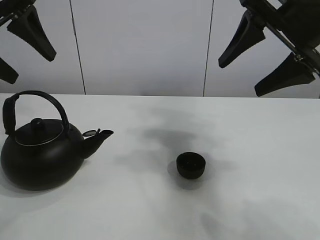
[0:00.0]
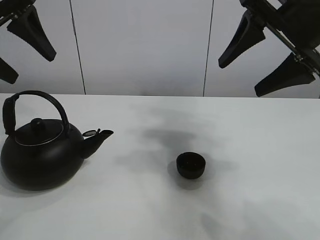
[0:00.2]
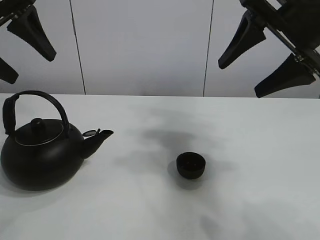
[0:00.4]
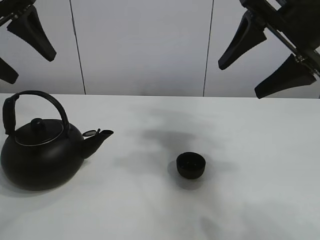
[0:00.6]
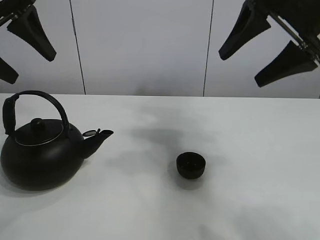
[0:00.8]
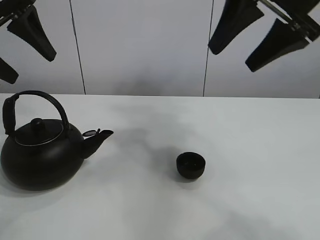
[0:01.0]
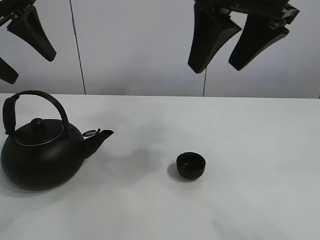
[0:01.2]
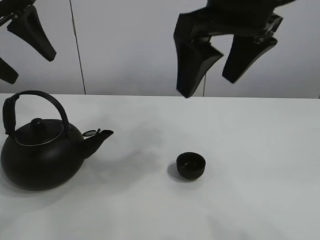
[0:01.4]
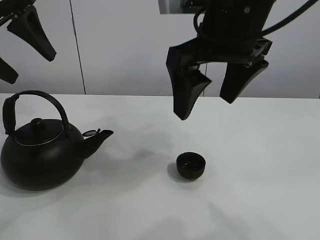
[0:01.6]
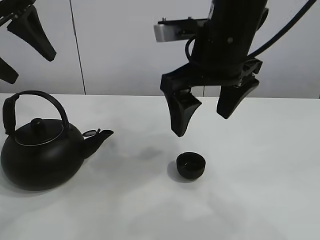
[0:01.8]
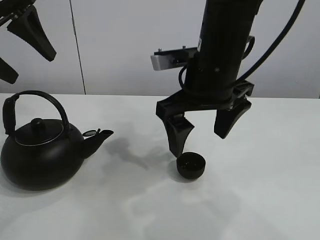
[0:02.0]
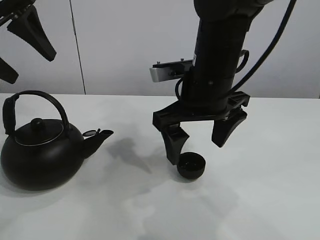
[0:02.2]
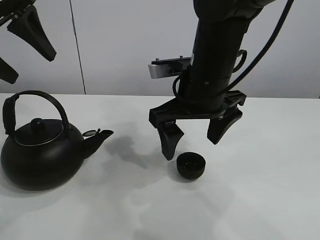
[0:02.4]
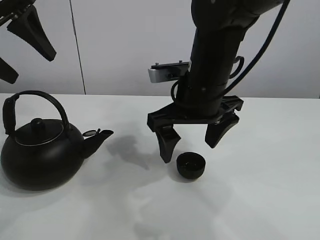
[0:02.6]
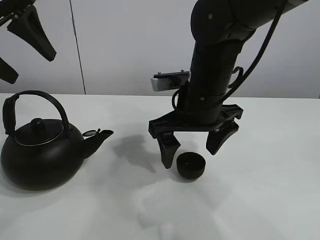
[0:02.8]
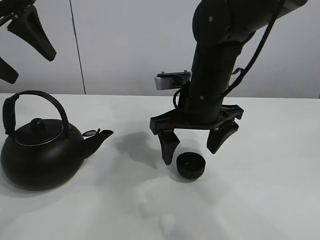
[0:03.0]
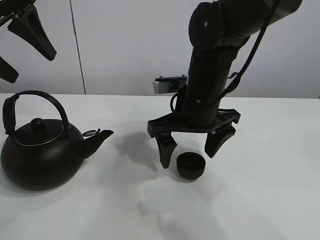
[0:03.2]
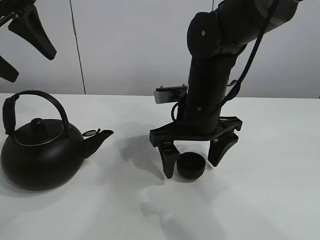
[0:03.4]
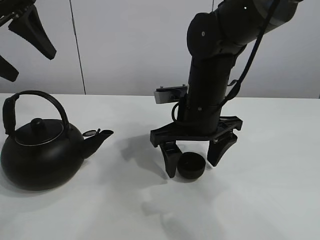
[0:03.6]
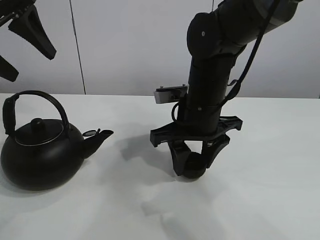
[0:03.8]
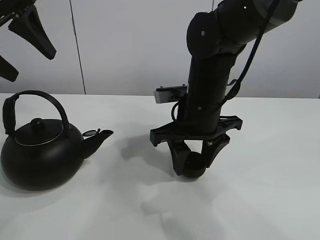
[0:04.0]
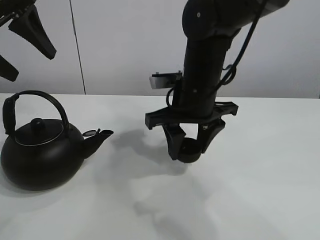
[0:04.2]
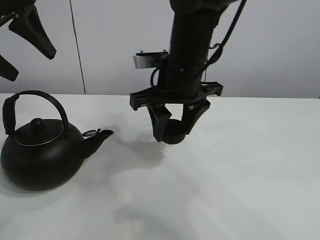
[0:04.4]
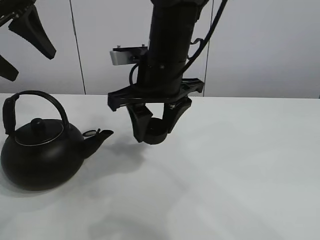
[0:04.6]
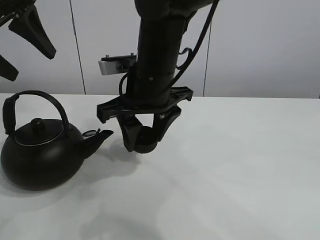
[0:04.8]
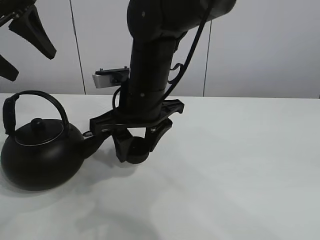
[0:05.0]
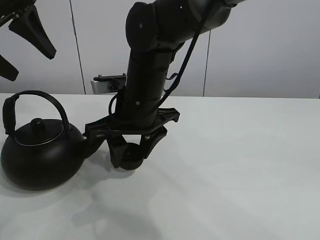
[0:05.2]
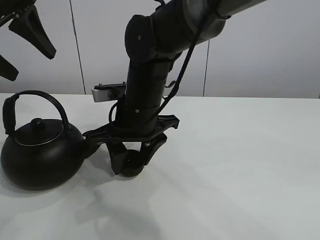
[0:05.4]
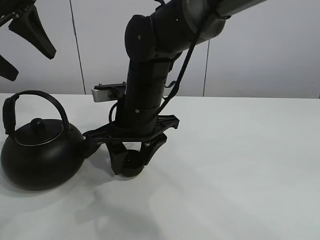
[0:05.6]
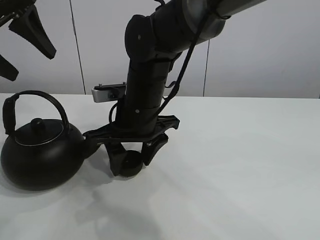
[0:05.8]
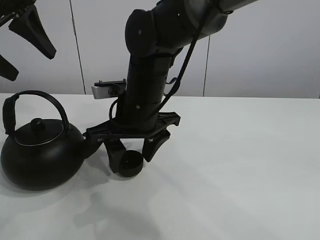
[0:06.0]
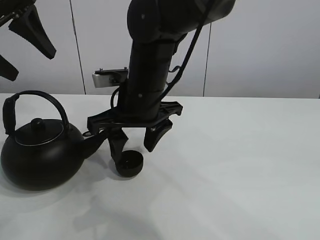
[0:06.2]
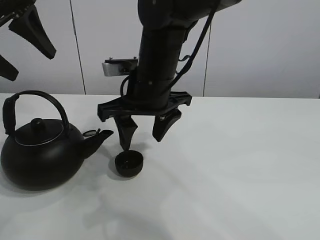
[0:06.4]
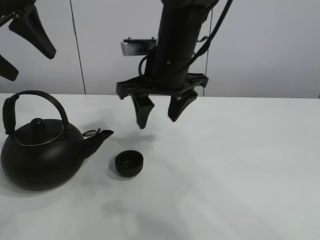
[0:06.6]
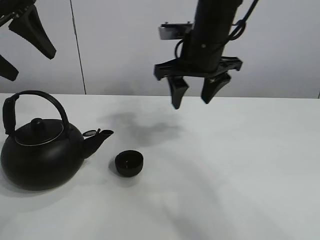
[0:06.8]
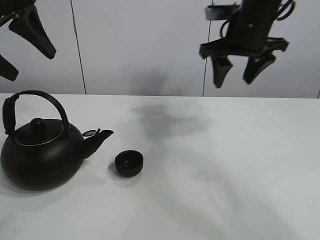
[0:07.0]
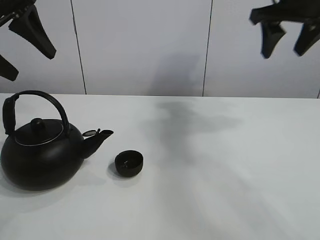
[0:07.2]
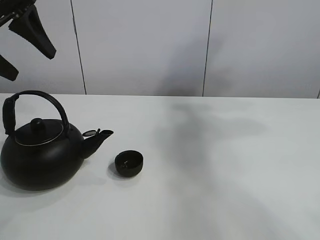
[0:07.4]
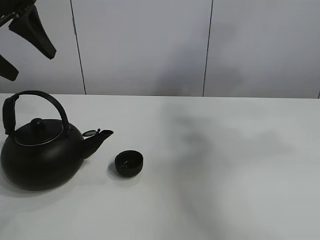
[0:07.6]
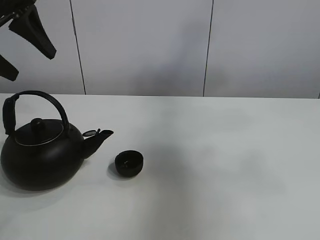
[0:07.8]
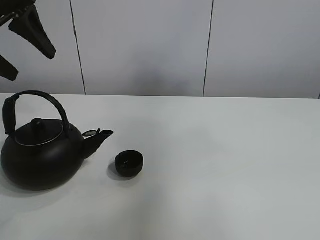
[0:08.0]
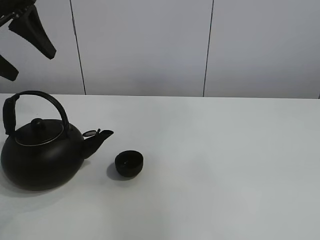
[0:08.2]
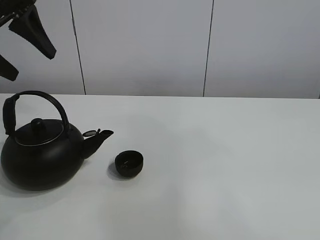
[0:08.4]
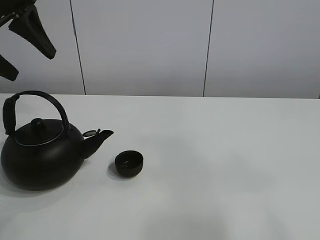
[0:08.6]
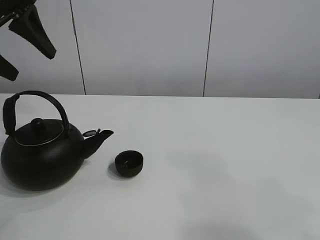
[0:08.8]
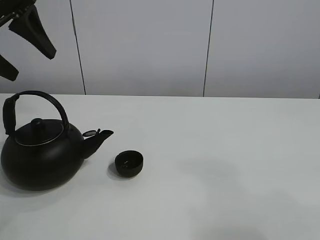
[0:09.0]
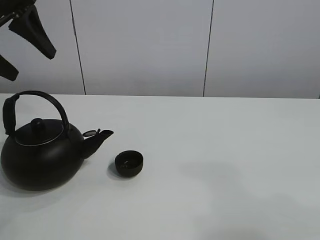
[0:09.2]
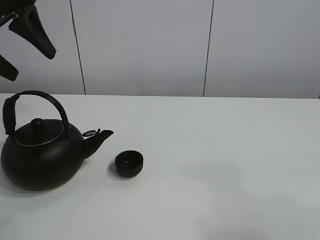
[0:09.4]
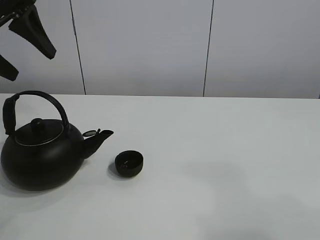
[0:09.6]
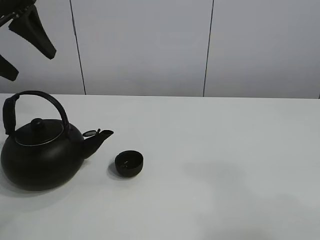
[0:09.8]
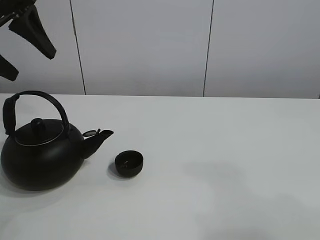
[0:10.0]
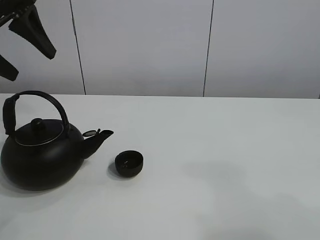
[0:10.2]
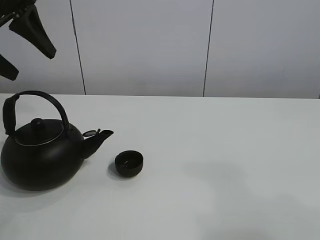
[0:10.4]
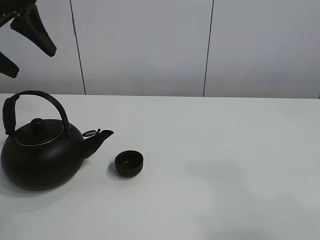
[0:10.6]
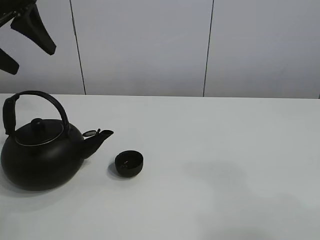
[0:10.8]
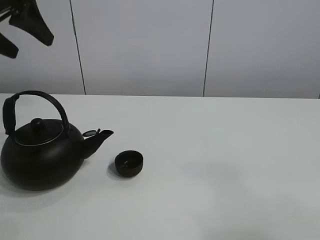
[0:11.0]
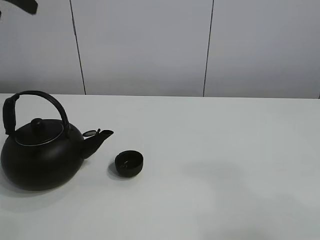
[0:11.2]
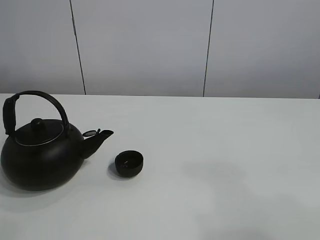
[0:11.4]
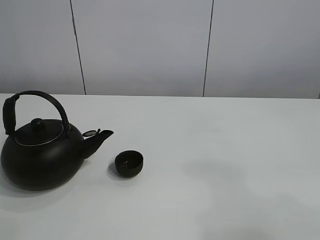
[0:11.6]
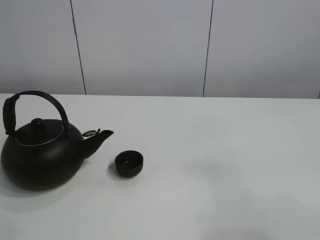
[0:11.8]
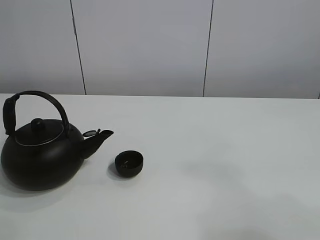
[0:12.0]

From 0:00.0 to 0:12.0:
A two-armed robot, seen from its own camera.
Task of the whole recording: pour tea into the teacup.
Step, from 0:00.0 to 0:04.0: Pick up the teacup with the right gripper.
Step, from 0:04.2 to 0:06.0: Place the teacup in the center of view with the right gripper.
From 0:01.6 to 0:03.0: The right gripper goes roughly 15 cm downward and forward.
From 0:03.0 to 0:04.4: The right gripper changes place by roughly 5 cm, and closes its fingers.
From 0:04.4 to 0:06.0: The right gripper is displaced to the left by approximately 5 cm.
From 0:06.0 to 0:07.6: The right gripper moves to the right and upward, approximately 50 cm.
From 0:07.6 to 0:09.0: The right gripper shifts some 30 cm backward and downward.
From 0:09.0 to 0:10.4: Both grippers stay about where they are.
From 0:10.4 to 0:12.0: The left gripper goes about 20 cm backward and upward.

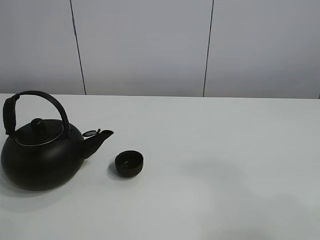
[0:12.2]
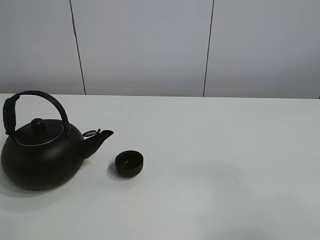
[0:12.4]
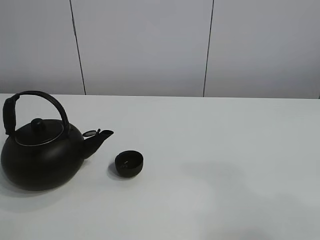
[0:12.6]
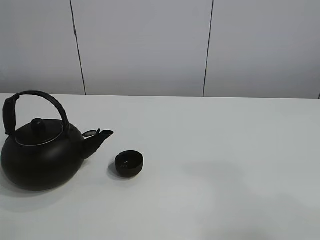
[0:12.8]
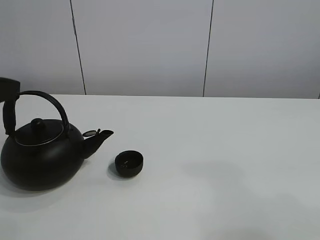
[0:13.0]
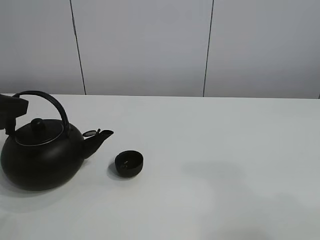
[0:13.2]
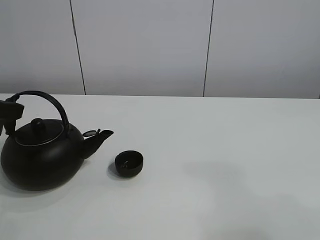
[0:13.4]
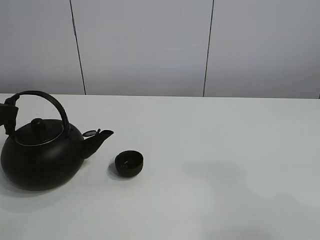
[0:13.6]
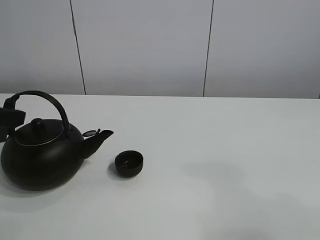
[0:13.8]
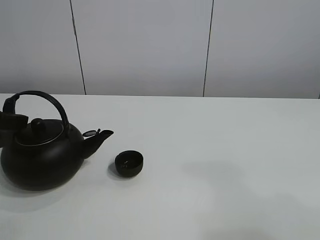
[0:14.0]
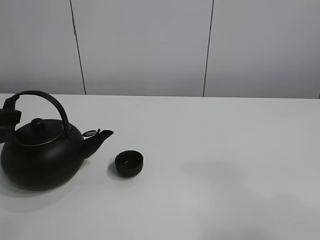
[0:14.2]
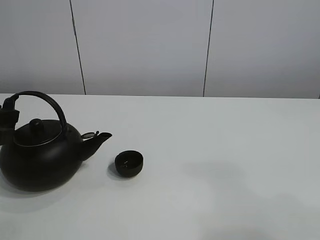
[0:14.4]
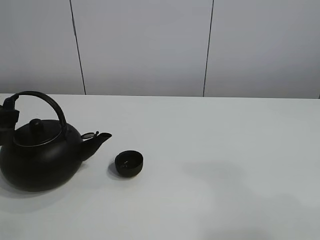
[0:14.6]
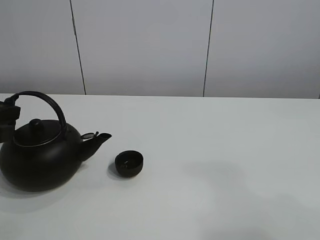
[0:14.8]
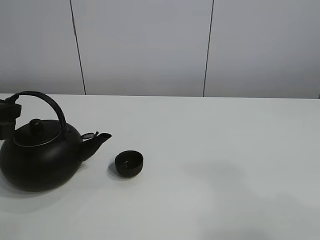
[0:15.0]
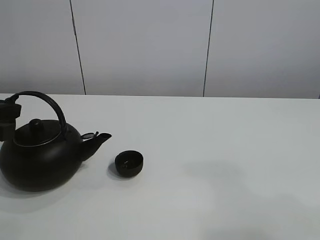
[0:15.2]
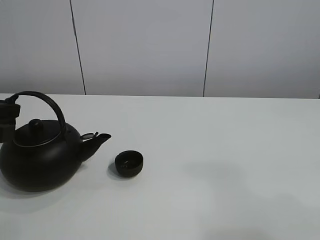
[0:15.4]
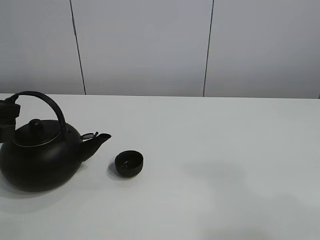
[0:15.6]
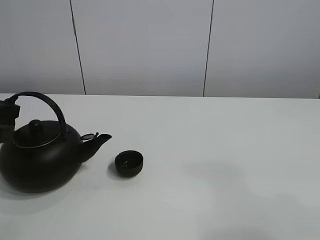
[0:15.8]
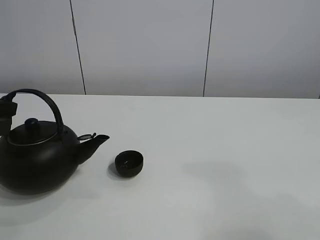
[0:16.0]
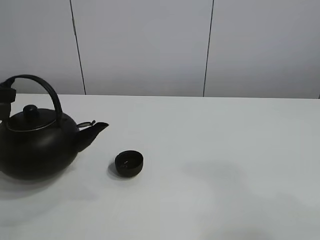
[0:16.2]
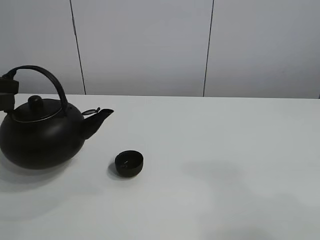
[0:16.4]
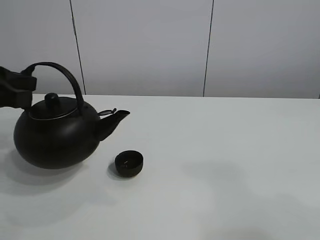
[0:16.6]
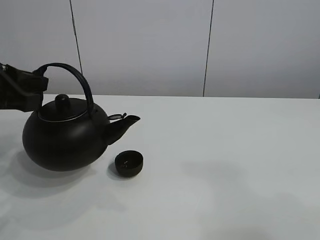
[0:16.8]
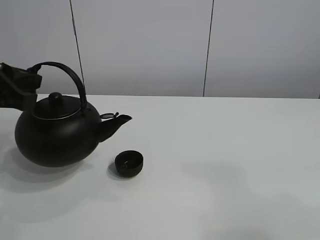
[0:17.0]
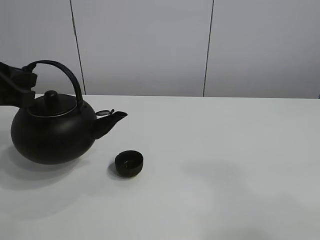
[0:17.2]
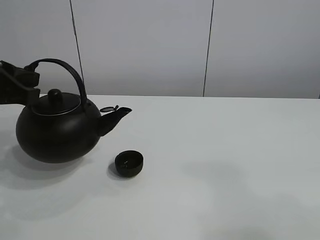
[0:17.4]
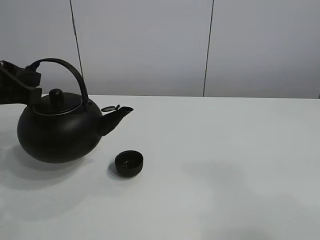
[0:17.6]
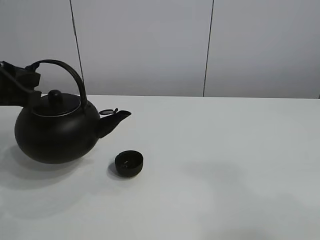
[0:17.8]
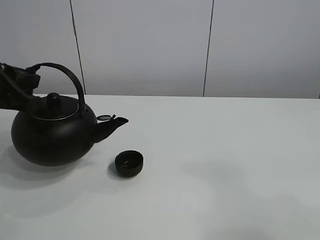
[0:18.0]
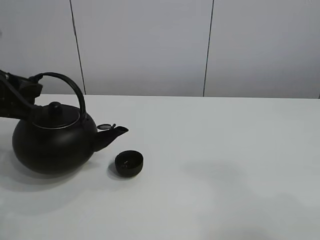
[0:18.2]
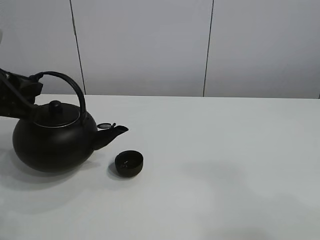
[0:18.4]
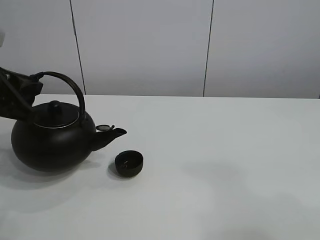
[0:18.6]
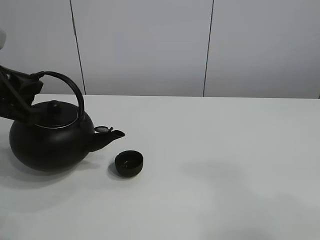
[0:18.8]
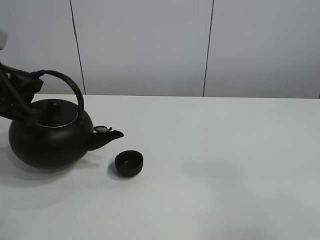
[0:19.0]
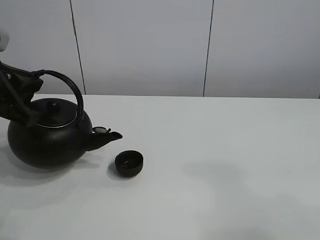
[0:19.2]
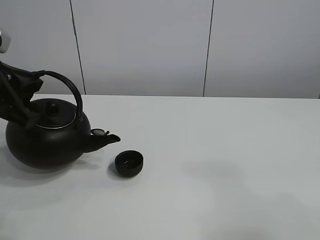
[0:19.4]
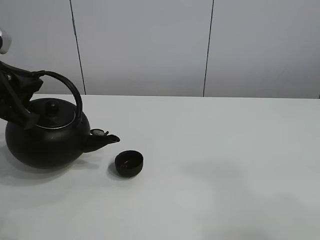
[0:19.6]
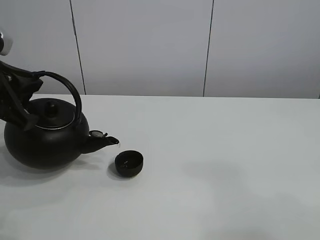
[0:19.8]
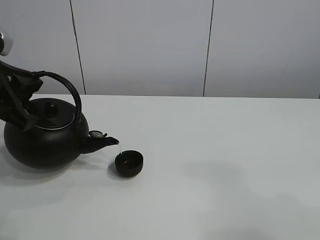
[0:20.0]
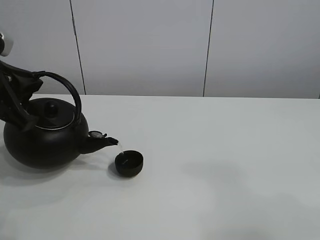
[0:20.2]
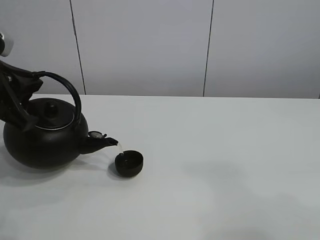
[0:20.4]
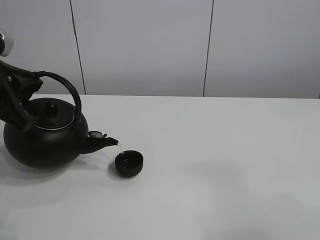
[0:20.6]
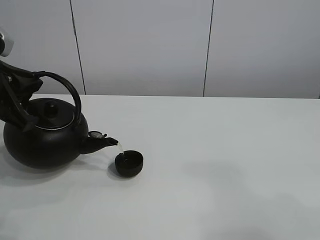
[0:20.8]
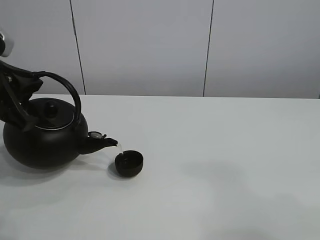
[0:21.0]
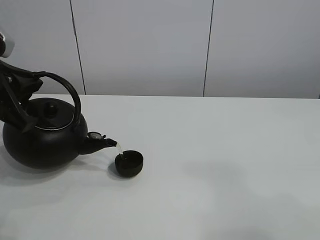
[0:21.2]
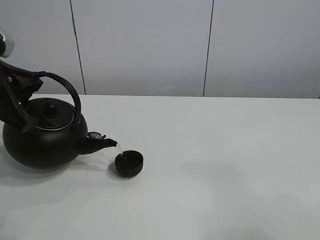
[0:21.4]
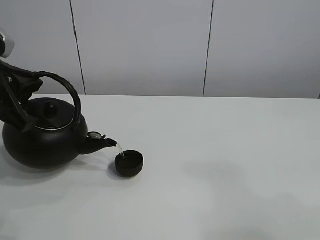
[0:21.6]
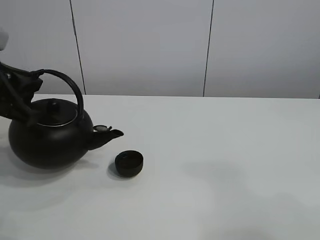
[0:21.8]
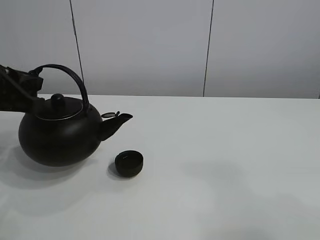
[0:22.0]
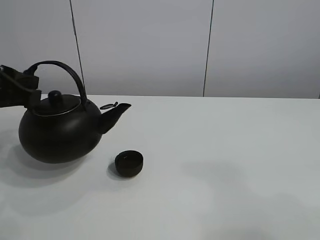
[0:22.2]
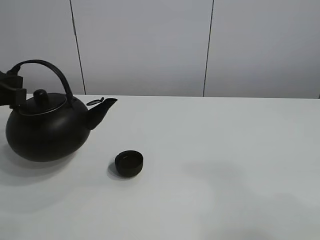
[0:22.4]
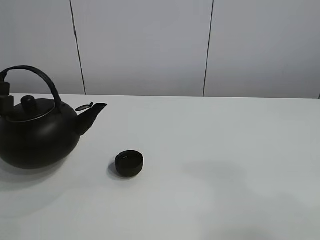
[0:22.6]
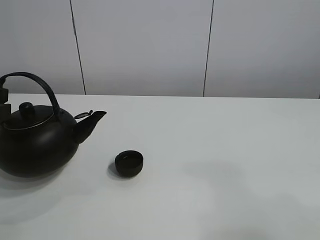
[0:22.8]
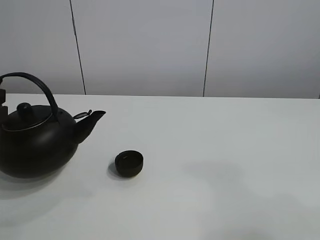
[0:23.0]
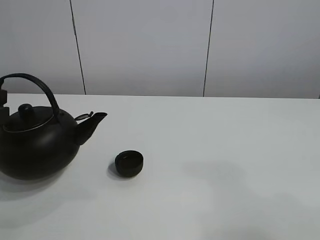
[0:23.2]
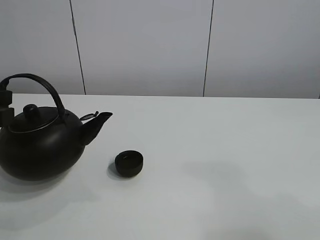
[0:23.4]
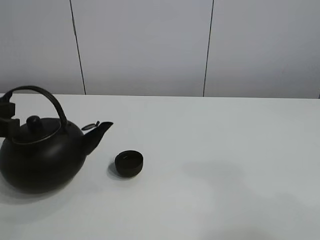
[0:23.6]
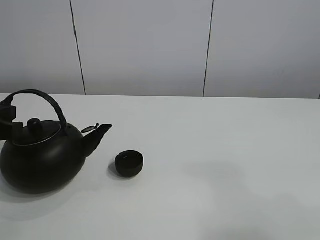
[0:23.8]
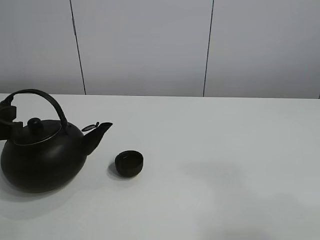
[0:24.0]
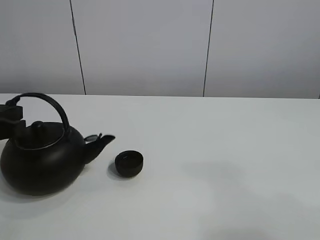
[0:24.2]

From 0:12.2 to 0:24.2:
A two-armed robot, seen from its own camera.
Task of the whole recording: pour tea into the teacup.
Step, from 0:12.2 to 0:14.4: Pick up the teapot with the left gripper.
Step, from 0:14.6 to 0:21.6: Pour tea into the teacup with the left gripper.
From 0:13.8 to 0:15.2: The left gripper closes.
From 0:15.2 to 0:16.6: The left gripper shifts by approximately 5 cm.
From 0:16.6 to 0:18.2: There are only small adjustments of the grippers.
From 0:18.2 to 0:19.8: The grippers stay close to where they were, moving slightly.
From 0:19.8 to 0:21.2: Both grippers stay put.
From 0:22.6 to 0:24.2: There are only small adjustments of the grippers.
